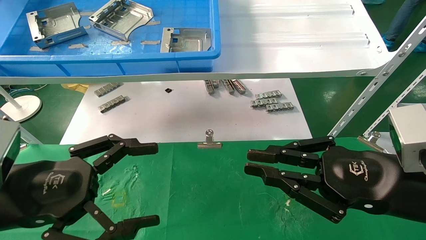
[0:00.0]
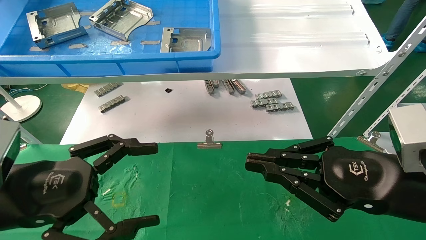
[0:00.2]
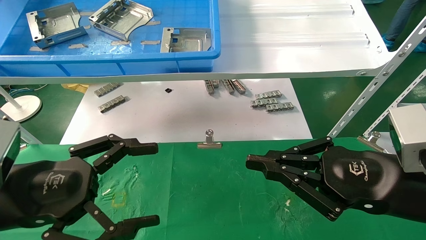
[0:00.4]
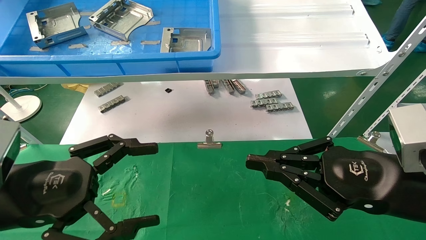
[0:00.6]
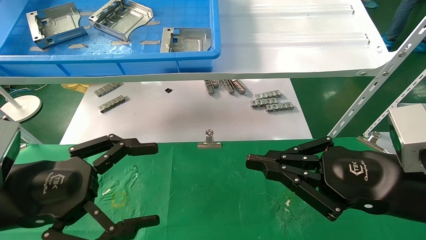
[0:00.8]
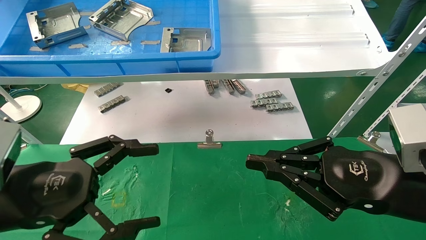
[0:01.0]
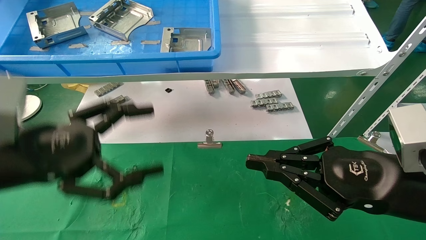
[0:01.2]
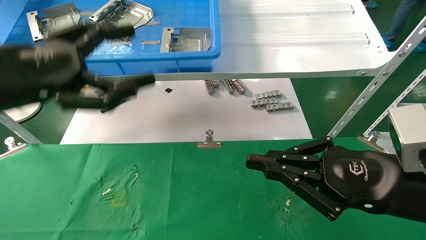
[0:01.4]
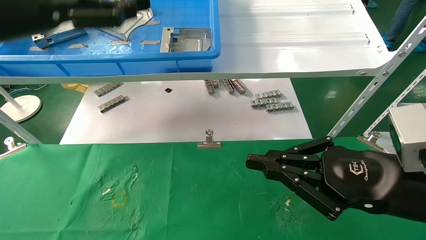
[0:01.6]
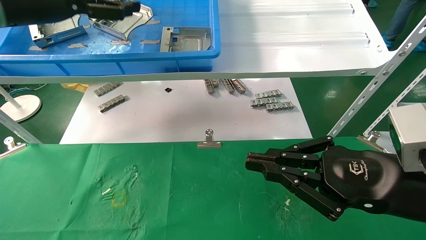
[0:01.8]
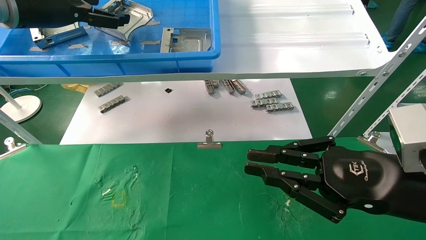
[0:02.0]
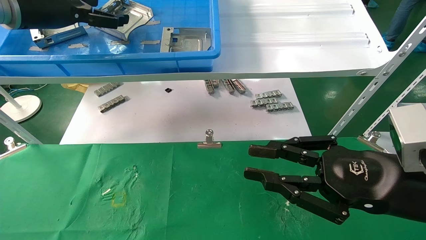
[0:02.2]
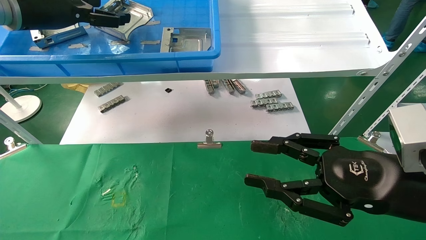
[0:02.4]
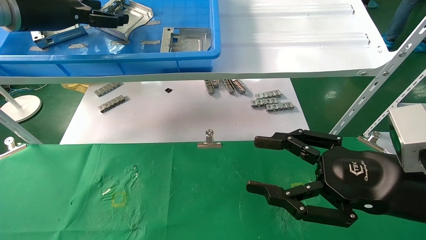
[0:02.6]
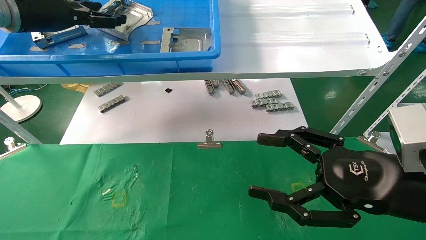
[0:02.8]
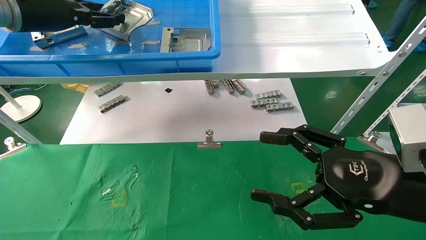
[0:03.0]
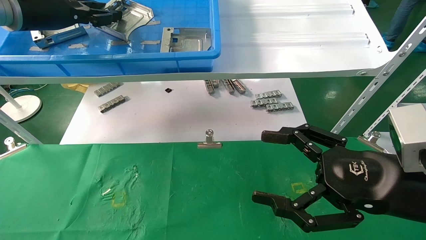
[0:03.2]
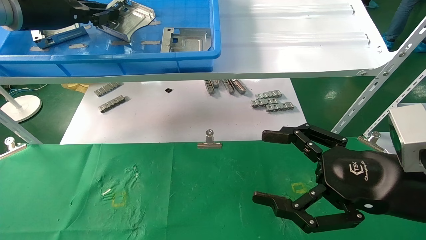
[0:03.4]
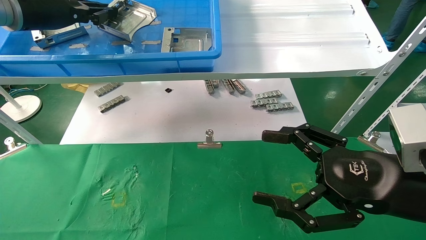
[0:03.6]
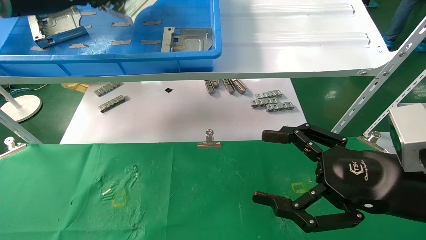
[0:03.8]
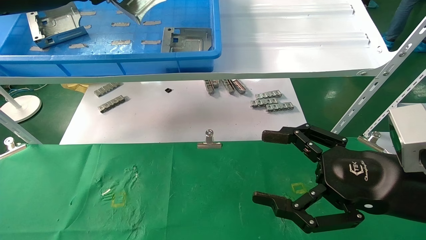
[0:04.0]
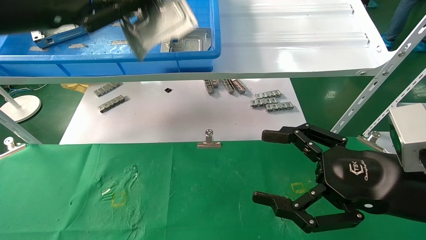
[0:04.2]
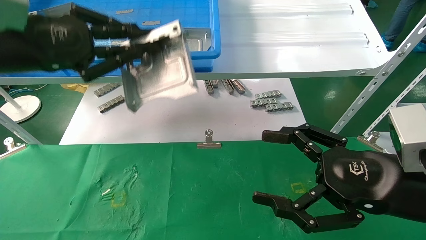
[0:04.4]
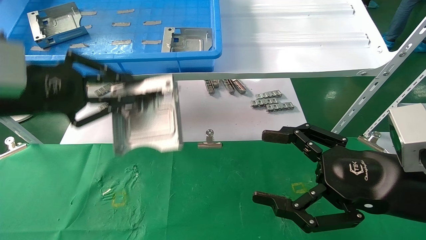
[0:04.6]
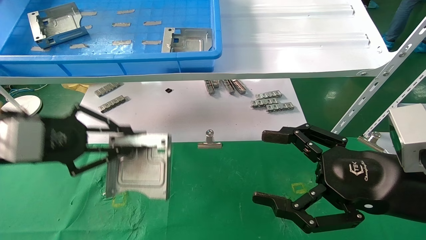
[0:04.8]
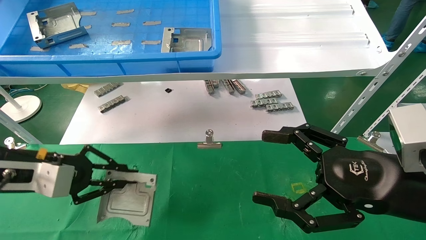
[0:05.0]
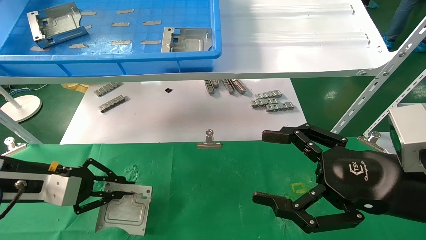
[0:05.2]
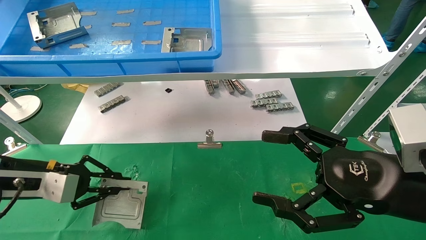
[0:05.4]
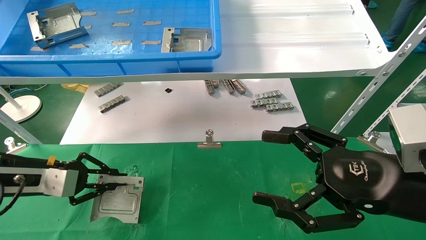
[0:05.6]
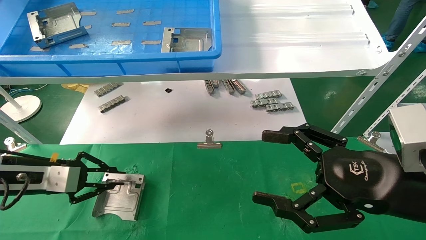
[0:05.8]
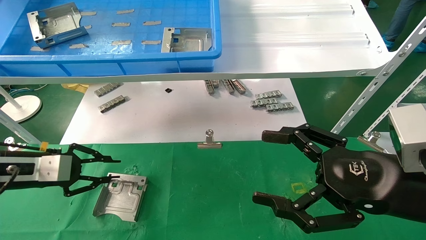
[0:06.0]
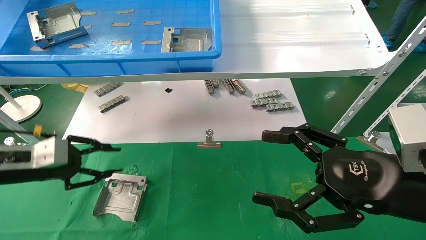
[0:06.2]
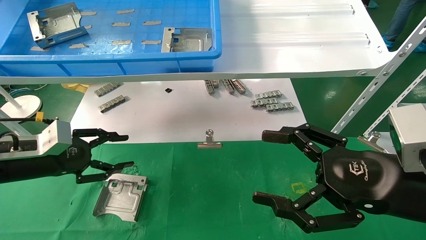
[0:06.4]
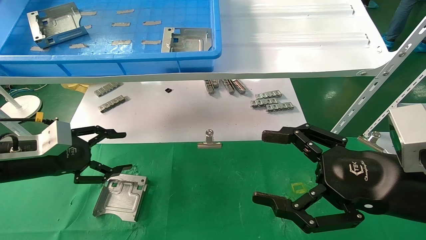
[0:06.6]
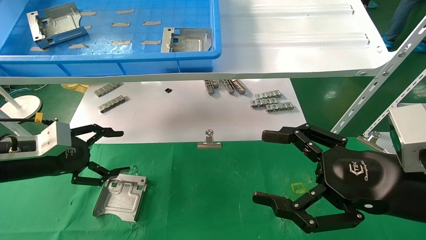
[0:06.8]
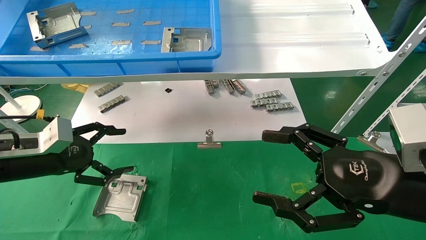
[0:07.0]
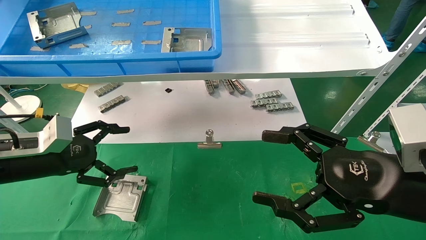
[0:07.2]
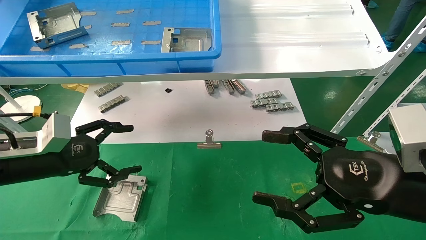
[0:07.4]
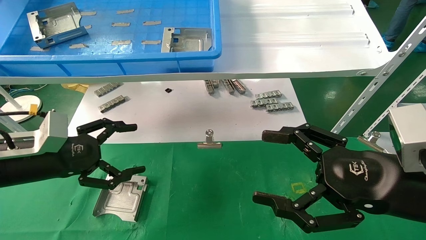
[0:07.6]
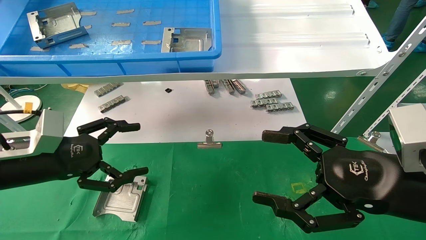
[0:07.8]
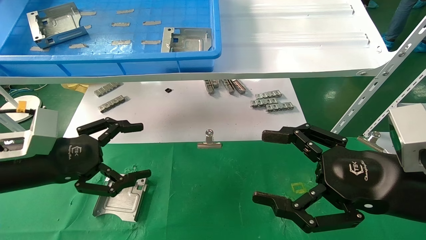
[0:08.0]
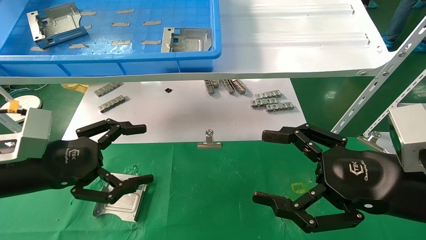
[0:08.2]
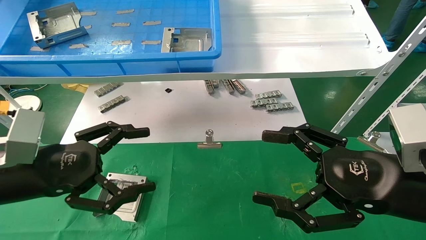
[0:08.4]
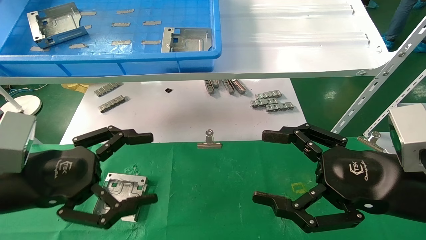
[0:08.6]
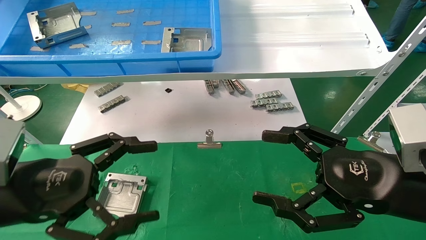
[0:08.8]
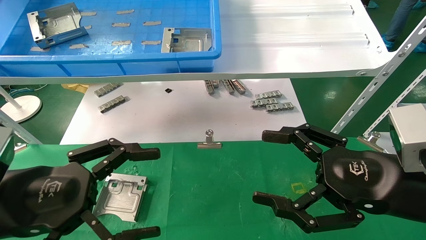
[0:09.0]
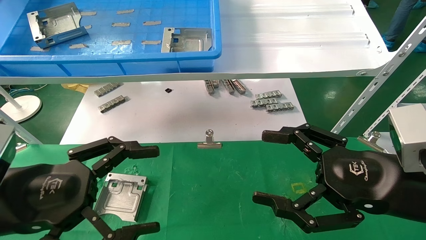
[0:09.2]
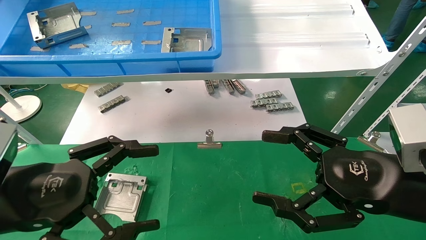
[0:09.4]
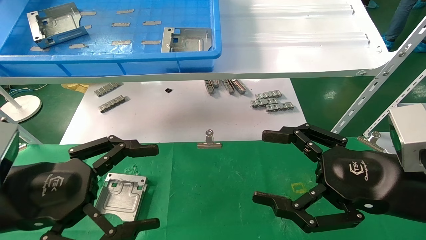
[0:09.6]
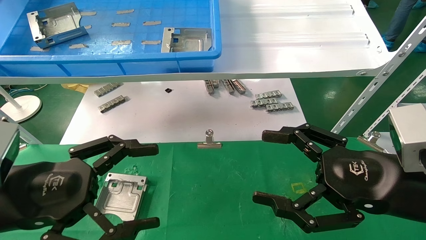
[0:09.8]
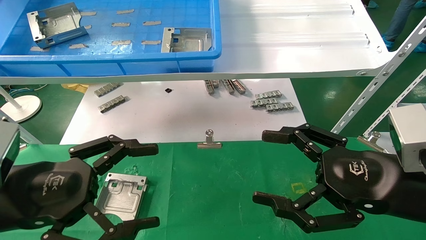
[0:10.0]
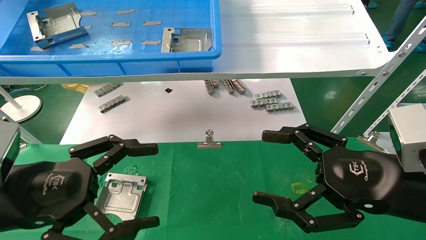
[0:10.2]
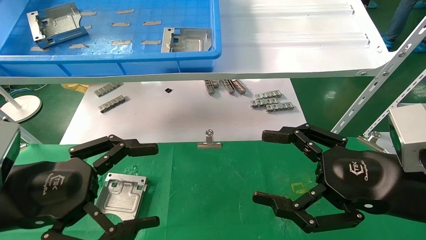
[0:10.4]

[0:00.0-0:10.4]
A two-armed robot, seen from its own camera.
Task of the whole recording: use the mechanical arm to pick up the parts and place them on the table.
Step, 0:01.6 to 0:03.6: Pick up the hard drive bracket from the feeding area.
Step, 0:03.8 to 0:05.8: Place the hard drive bracket into the box.
0:00.0 to 0:01.4: The left gripper shifts approximately 15 cm upward and forward.
0:01.4 to 0:03.0: The right gripper opens its fingers, while the left gripper travels forward and upward by some 20 cm, and closes its fingers.
0:03.0 to 0:04.4: The left gripper travels backward and downward by about 15 cm, and closes its fingers.
0:04.4 to 0:06.0: The left gripper travels downward by some 20 cm.
0:06.0 to 0:07.4: The left gripper opens.
0:07.4 to 0:09.0: The left gripper goes about 15 cm backward and to the right.
0:09.0 to 0:10.4: Both grippers stay about where they are.
